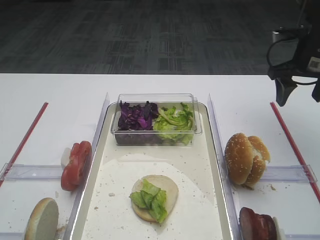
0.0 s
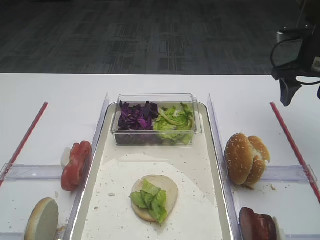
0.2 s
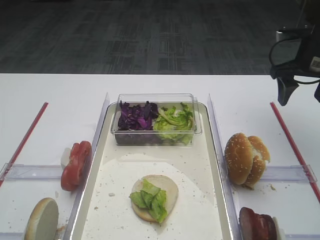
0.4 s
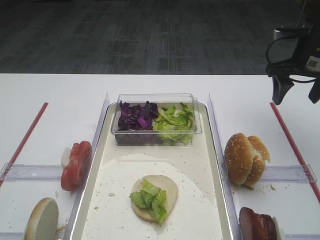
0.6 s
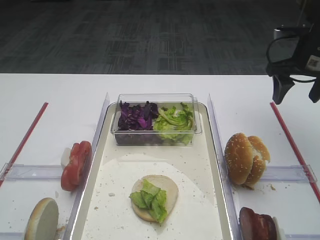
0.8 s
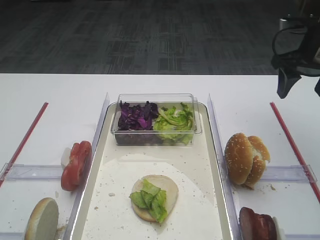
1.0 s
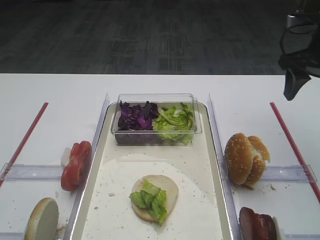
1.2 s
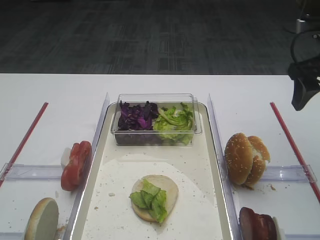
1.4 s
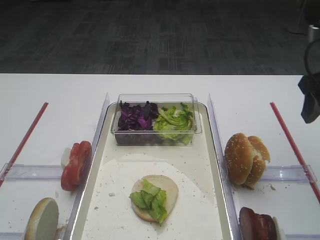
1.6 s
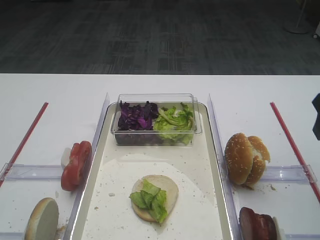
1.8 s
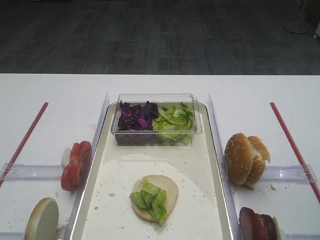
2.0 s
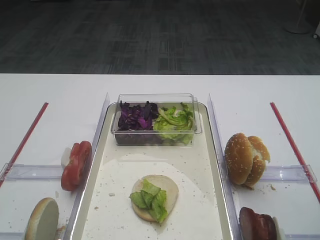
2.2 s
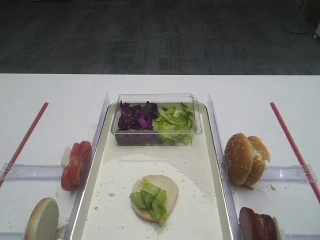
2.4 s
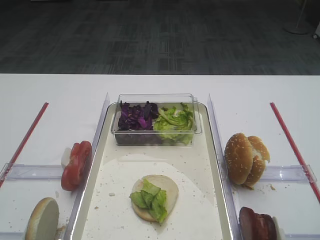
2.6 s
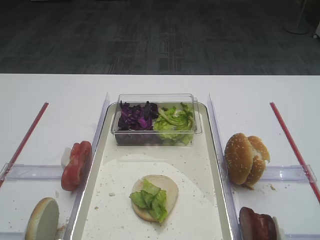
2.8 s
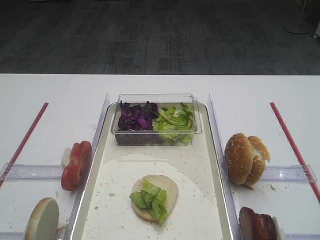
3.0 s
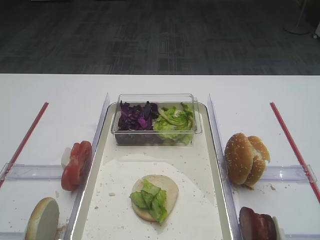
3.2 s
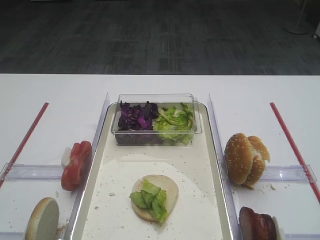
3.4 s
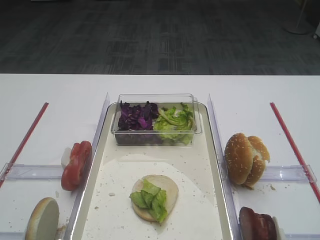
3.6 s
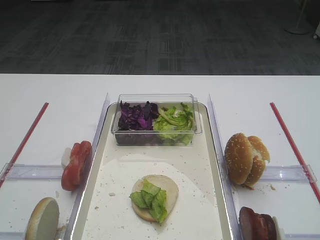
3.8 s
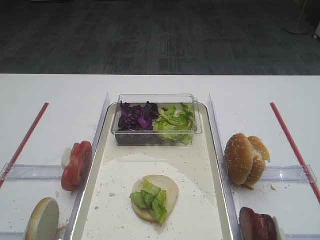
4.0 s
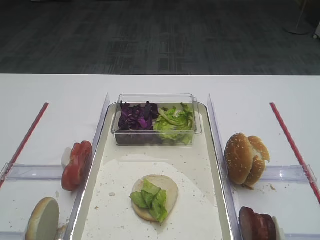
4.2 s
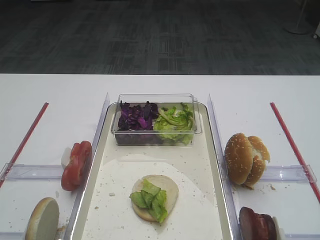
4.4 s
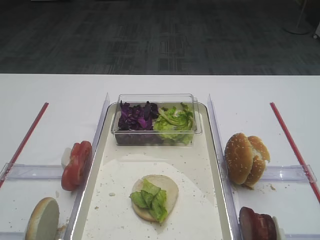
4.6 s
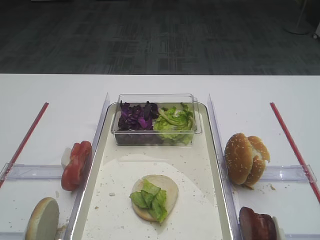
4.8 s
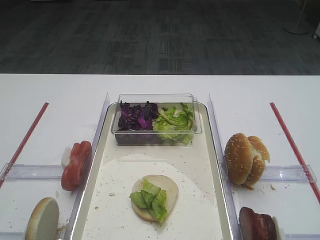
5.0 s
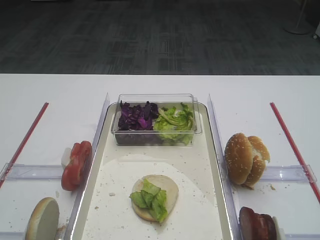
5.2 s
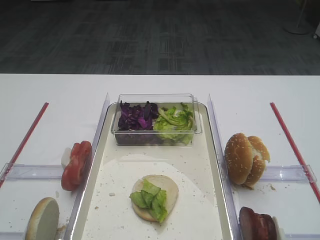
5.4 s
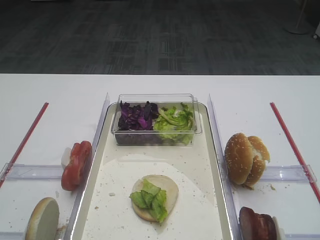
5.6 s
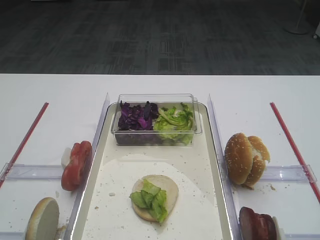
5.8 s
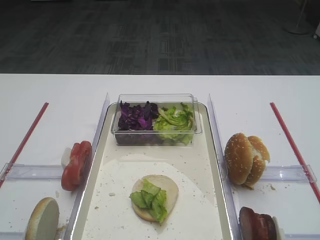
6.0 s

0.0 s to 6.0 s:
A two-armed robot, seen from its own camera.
0.0 to 1.6 s: The right gripper is displaced backward by approximately 10 cm.
1.6 to 3.0 s: The right gripper heads backward, covering approximately 25 cm.
4.4 to 6.0 s: The two grippers keep their place.
